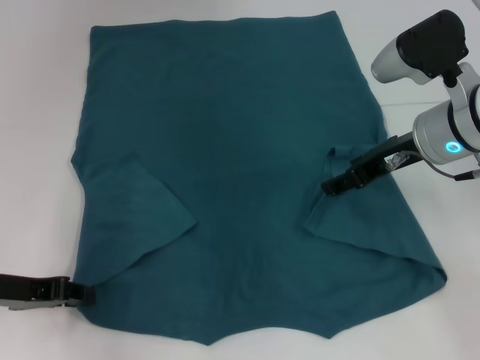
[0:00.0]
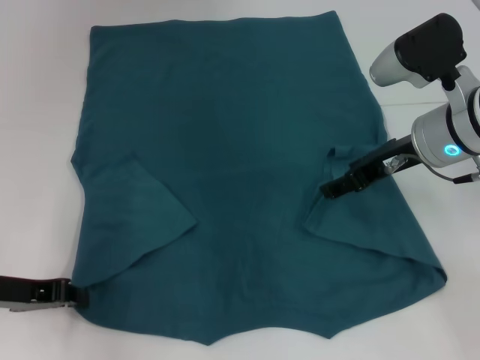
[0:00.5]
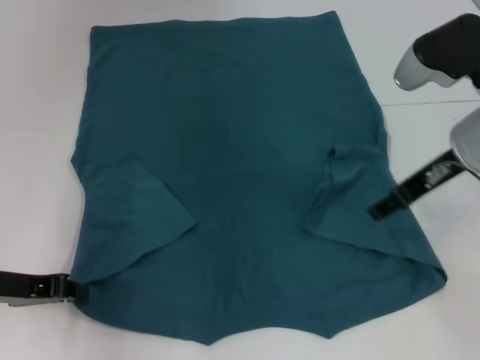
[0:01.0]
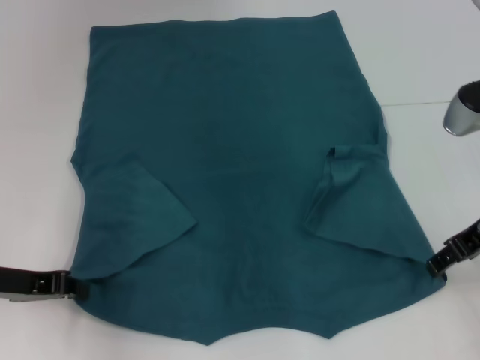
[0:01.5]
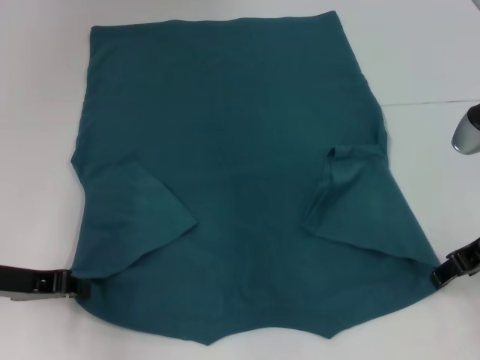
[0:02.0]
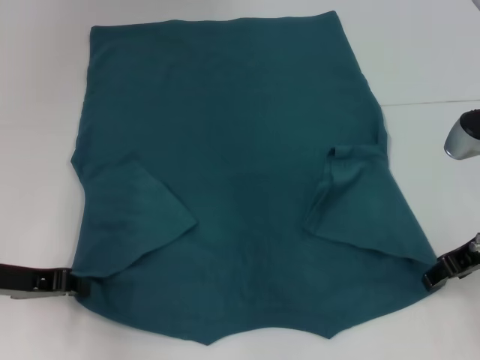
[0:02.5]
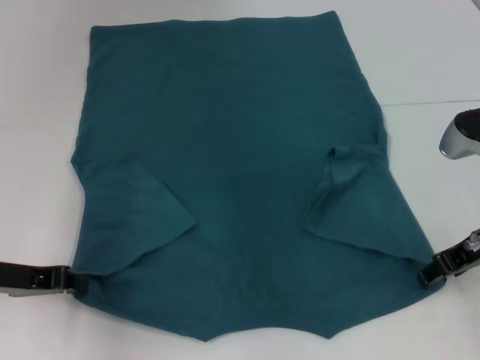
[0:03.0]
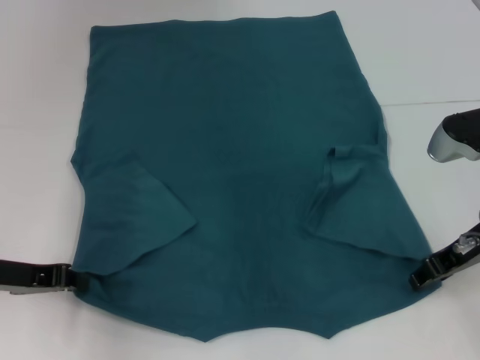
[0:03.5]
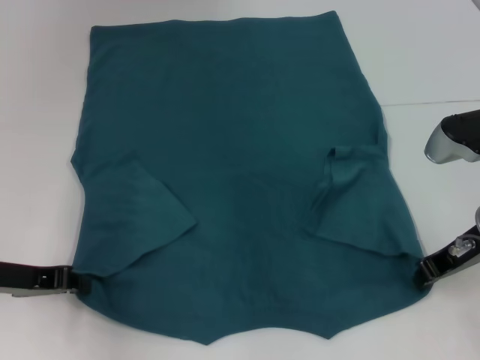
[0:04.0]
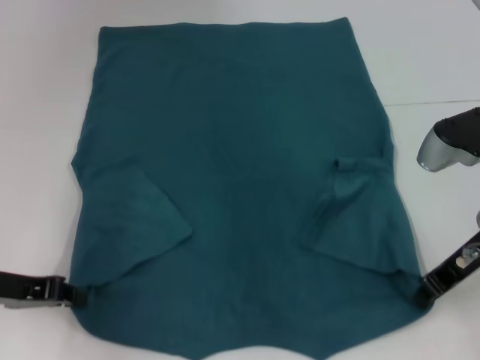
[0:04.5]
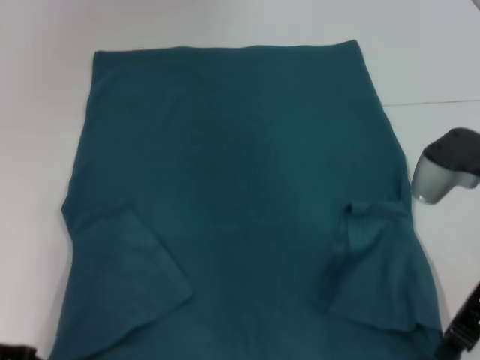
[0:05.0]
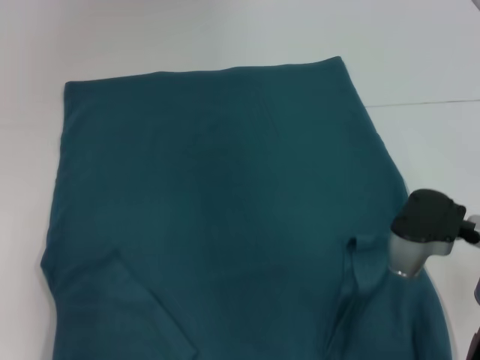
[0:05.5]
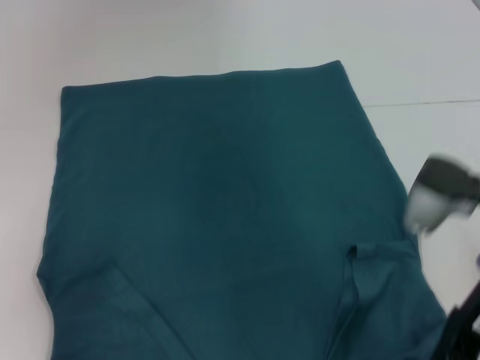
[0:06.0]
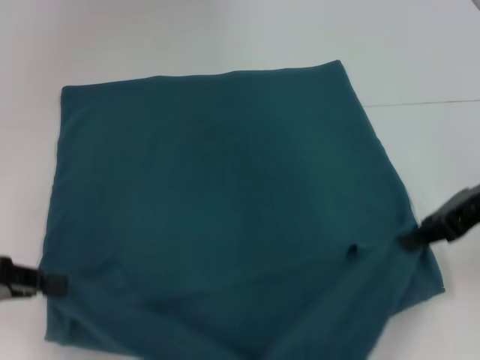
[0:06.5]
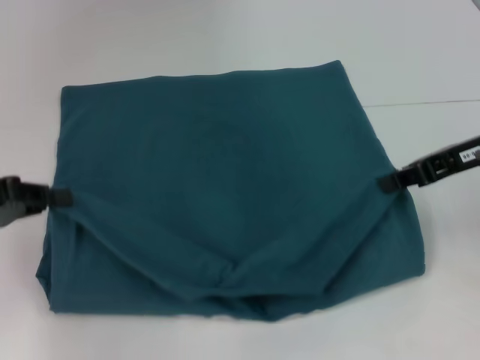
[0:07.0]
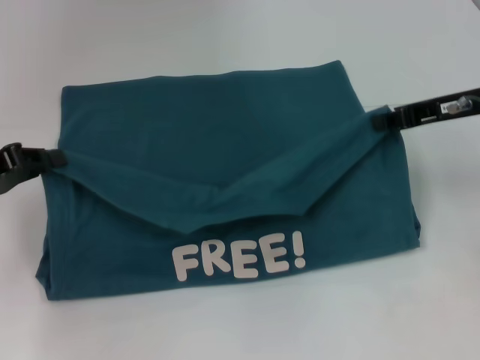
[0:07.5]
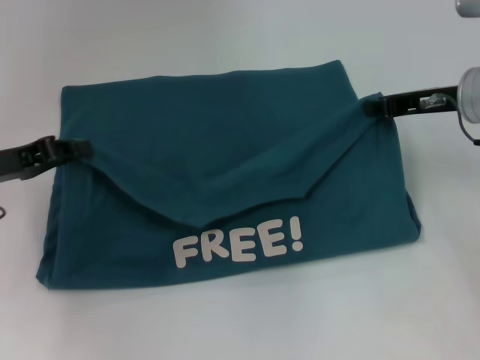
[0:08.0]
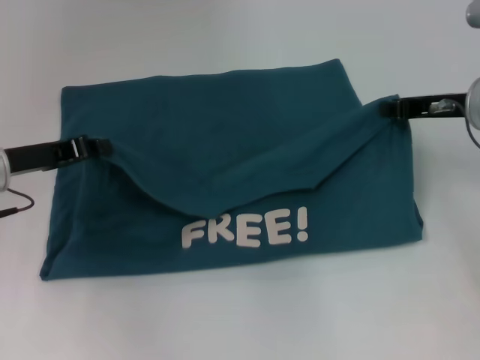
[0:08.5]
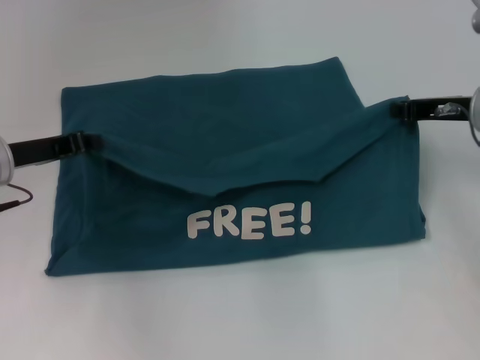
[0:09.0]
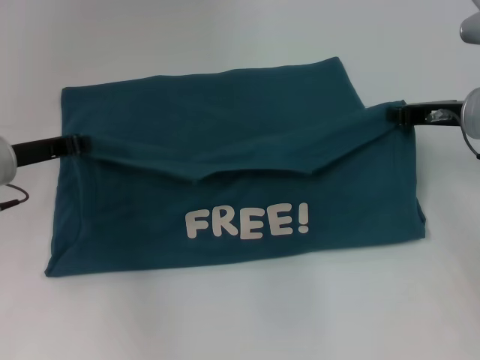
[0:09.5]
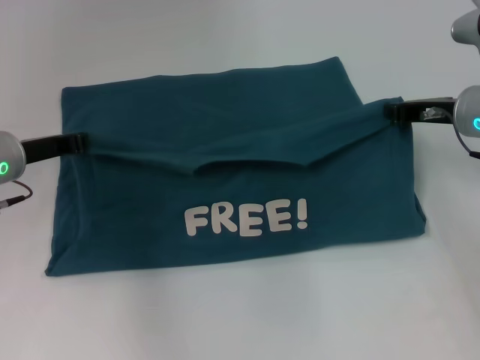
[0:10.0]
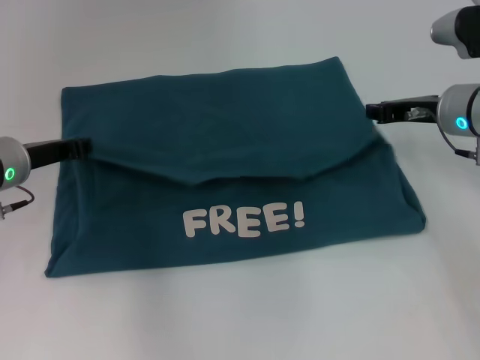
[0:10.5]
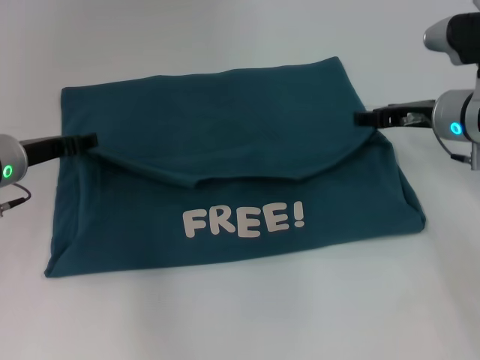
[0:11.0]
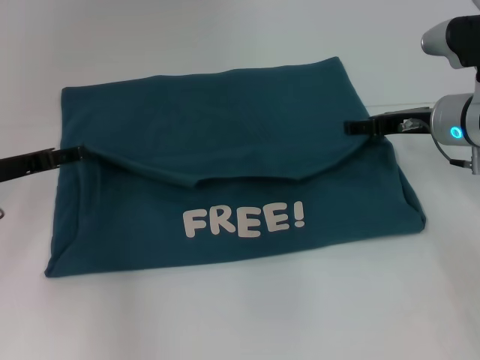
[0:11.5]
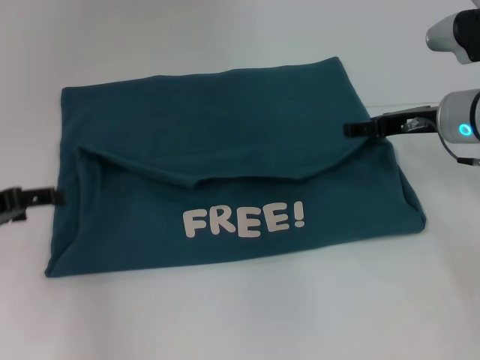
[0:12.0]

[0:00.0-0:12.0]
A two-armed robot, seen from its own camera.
Step, 0:02.0 to 0:03.5: Grab the bottom right corner with your right hand.
Step, 0:04.0 to 0:11.0: Fold the clothes to the left.
Step, 0:04.0 to 0:11.0: Fold the clothes to the right.
0:00.0 to 0:02.0: The right gripper moves to the right and backward, roughly 10 cm. The left gripper closes up.
0:02.0 to 0:04.0: The right gripper closes up.
0:04.0 to 0:06.0: The right gripper moves roughly 5 cm. Meanwhile the left gripper shifts about 10 cm backward.
0:06.0 to 0:08.0: The grippers both shift forward by approximately 10 cm.
0:08.0 to 0:10.0: The left gripper travels forward by approximately 5 cm.
0:10.0 to 0:12.0: The right gripper opens. The left gripper is displaced backward and to the left by about 10 cm, and opens.

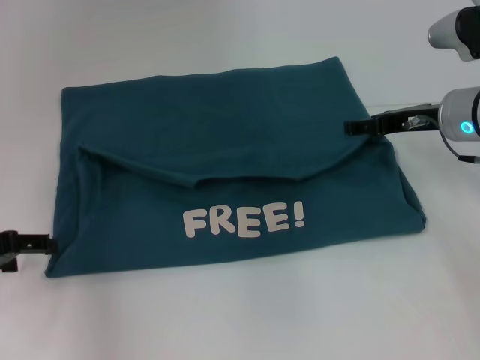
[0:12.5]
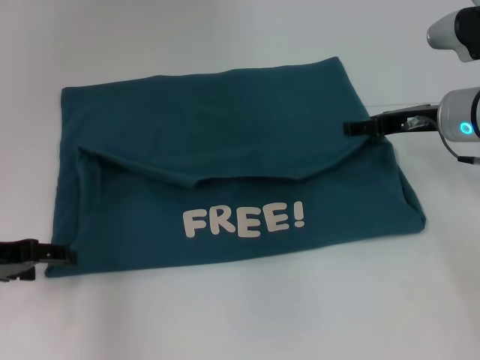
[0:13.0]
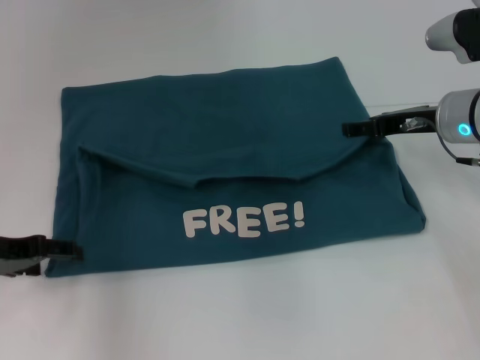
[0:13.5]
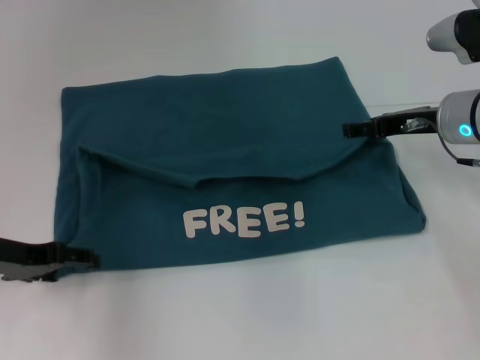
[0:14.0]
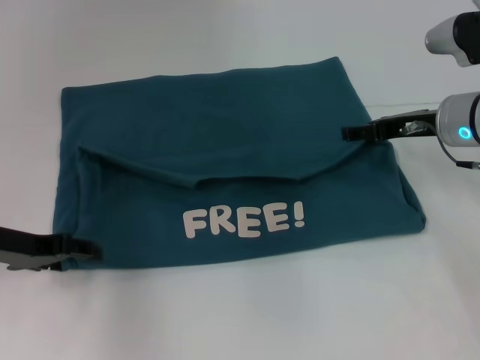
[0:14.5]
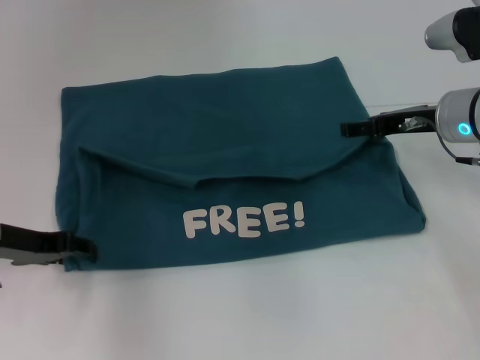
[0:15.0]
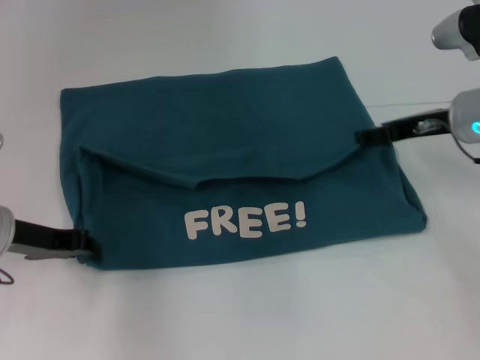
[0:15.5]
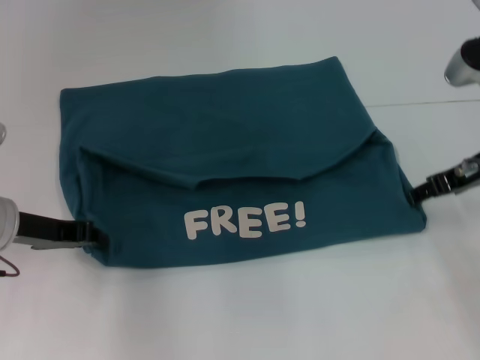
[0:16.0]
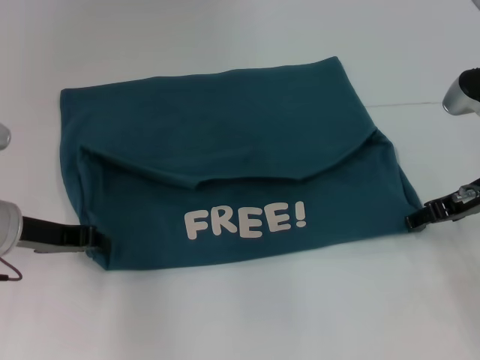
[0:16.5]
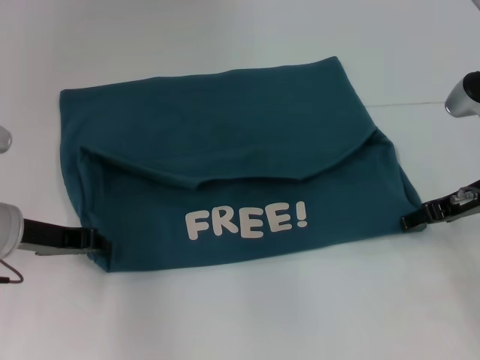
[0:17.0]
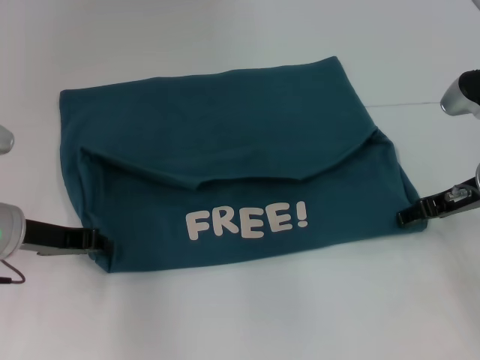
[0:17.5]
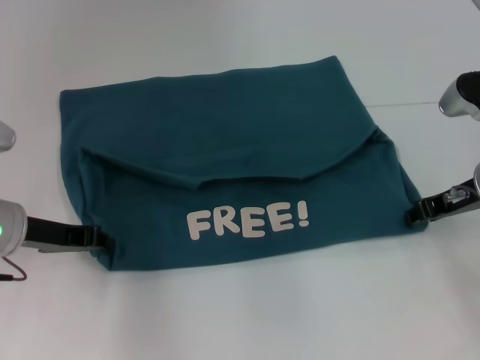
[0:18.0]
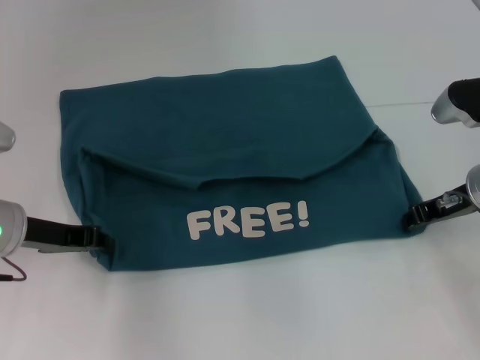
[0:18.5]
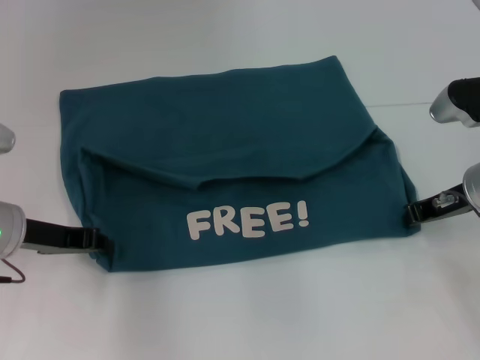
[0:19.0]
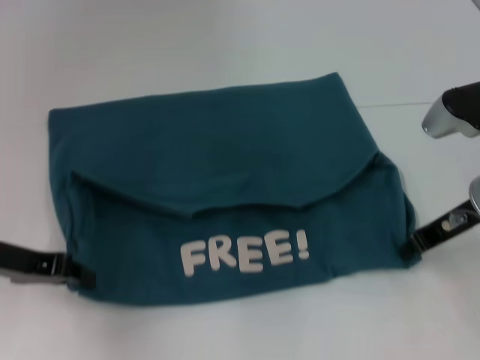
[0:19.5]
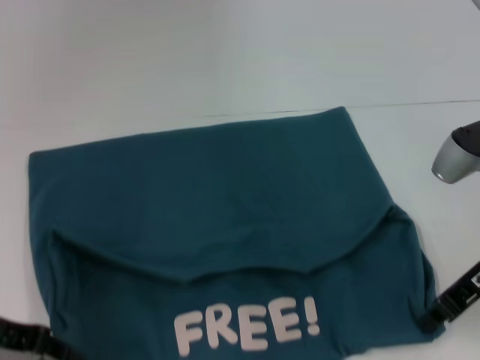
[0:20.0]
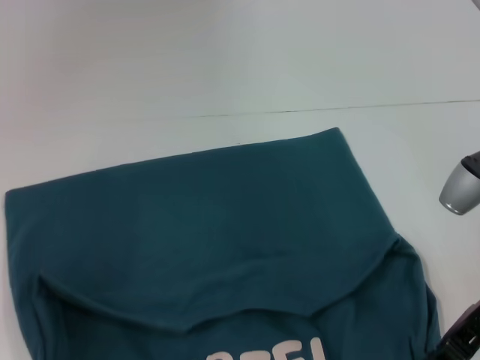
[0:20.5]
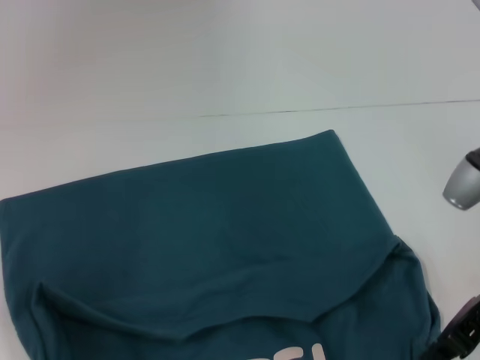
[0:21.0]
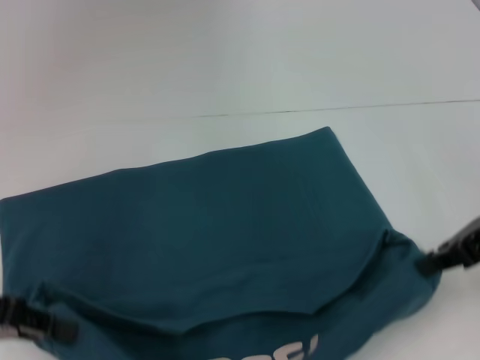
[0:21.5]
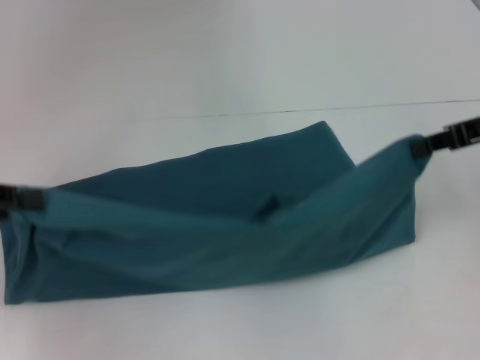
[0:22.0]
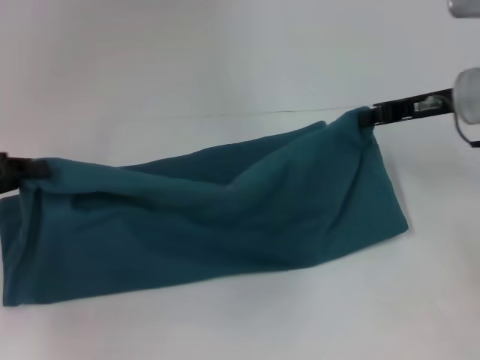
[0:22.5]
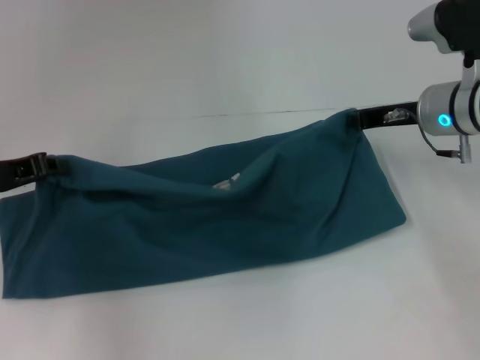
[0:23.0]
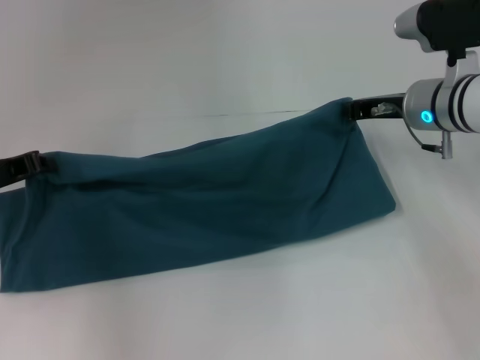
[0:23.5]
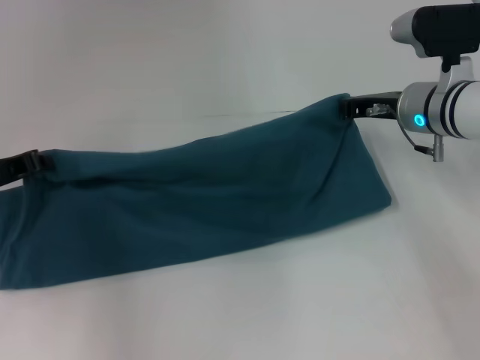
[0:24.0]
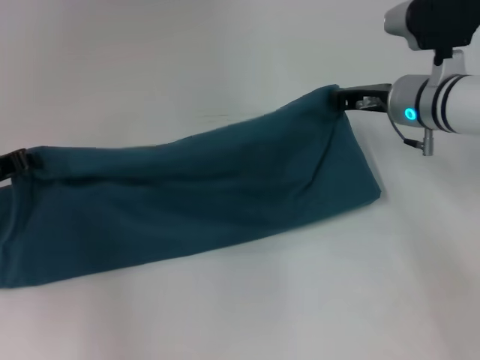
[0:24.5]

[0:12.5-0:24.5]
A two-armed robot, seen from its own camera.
Step, 0:12.5 to 0:20.0: Pull the clothes with your left hand.
Step, 0:12.5 to 0:20.0: Pull the clothes with your right hand.
0:12.5 to 0:14.5: The left gripper moves roughly 5 cm.
0:14.5 to 0:16.5: The left gripper closes. Meanwhile the right gripper shifts by about 5 cm.
0:16.5 to 0:18.5: The right gripper closes its fingers.
0:18.5 to 0:20.5: The grippers both shift backward by roughly 10 cm. The right gripper closes.
0:20.5 to 0:22.5: The two grippers go about 10 cm forward.
0:22.5 to 0:24.5: The right gripper is displaced to the left by about 5 cm; the left gripper moves roughly 5 cm.

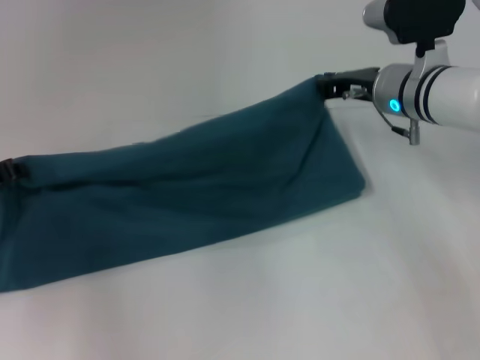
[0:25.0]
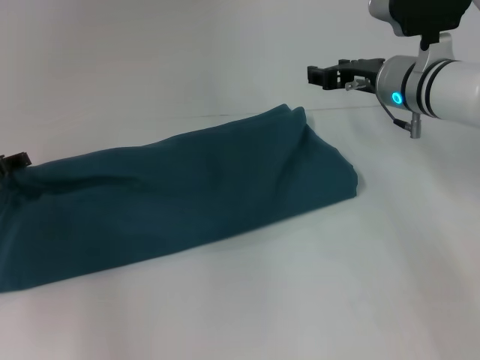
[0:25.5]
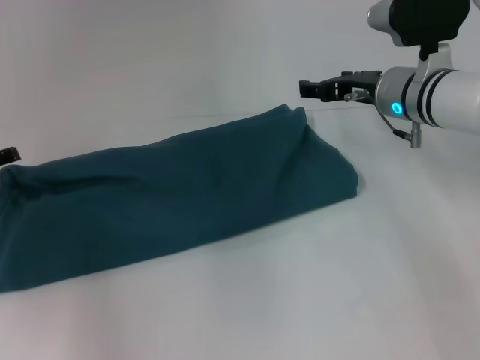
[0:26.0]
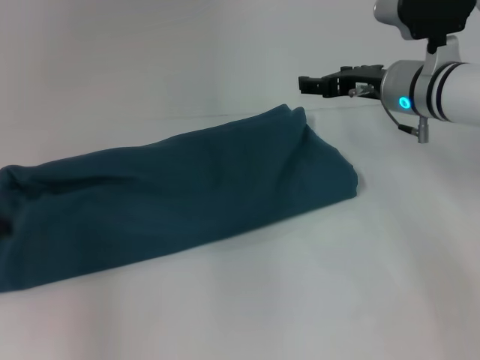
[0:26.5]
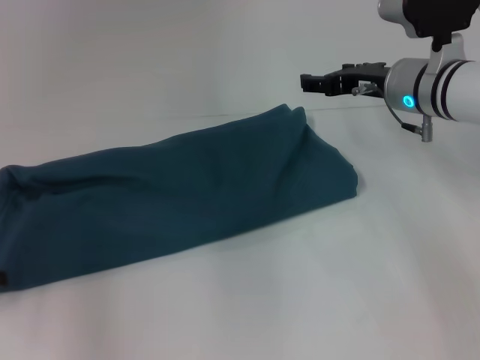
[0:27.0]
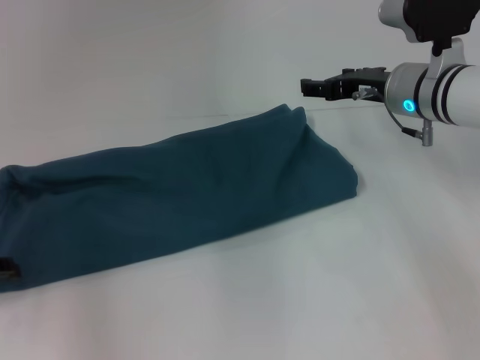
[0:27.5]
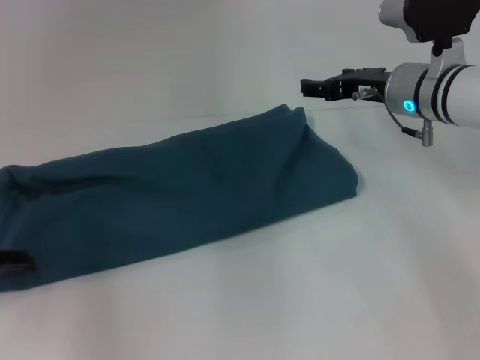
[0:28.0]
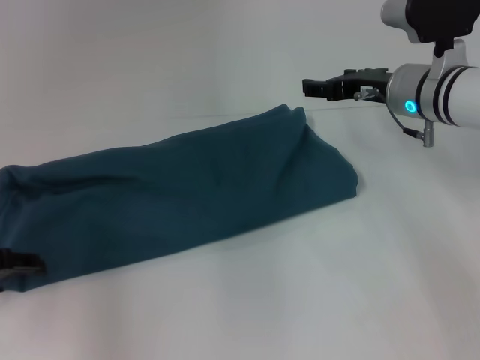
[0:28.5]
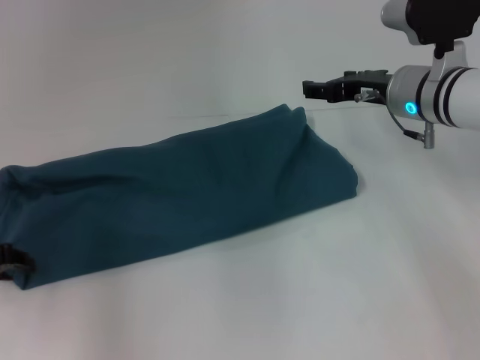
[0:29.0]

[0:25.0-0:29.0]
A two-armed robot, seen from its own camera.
0:25.0 to 0:27.0: The right gripper opens its fingers, while the left gripper heads backward, covering some 10 cm, and opens its fingers.
0:27.0 to 0:29.0: The left gripper ends up approximately 5 cm from where it was, and closes up.
